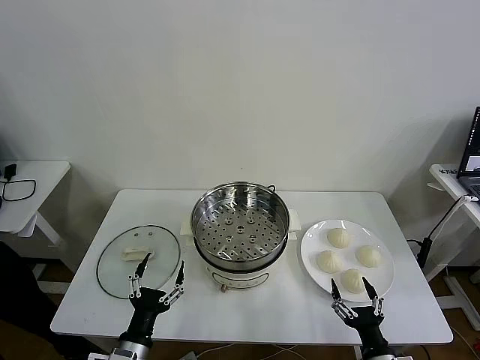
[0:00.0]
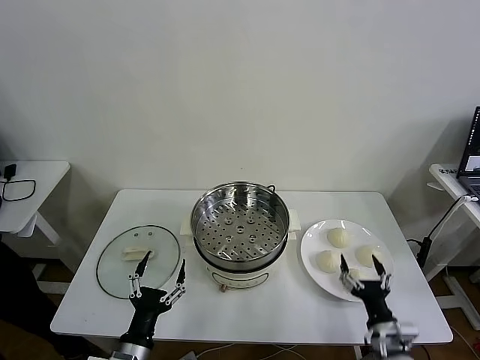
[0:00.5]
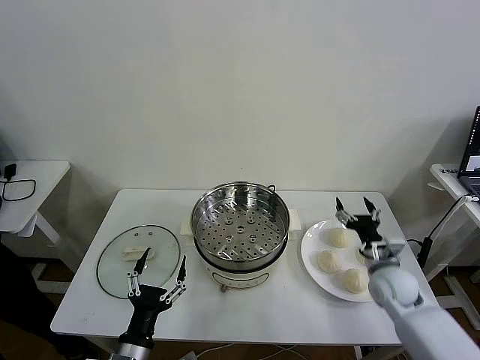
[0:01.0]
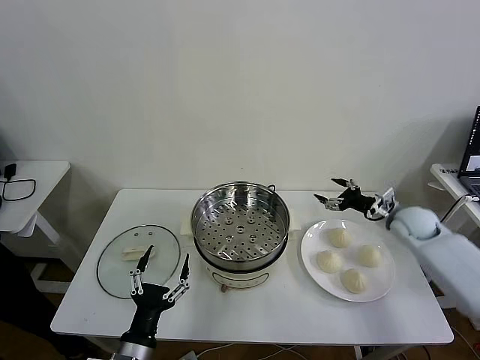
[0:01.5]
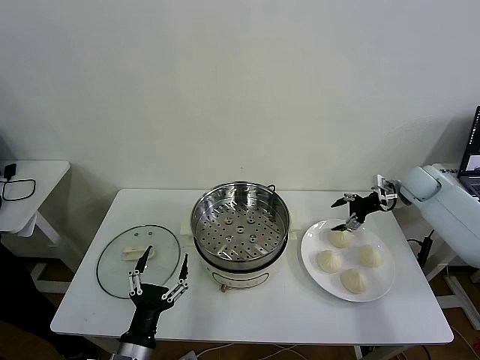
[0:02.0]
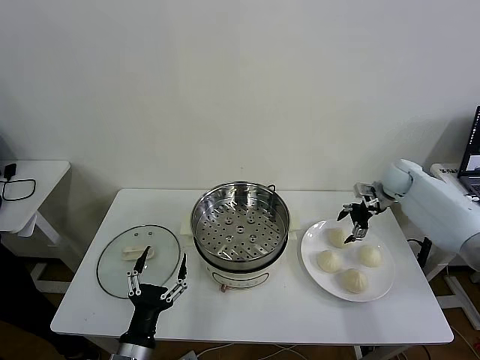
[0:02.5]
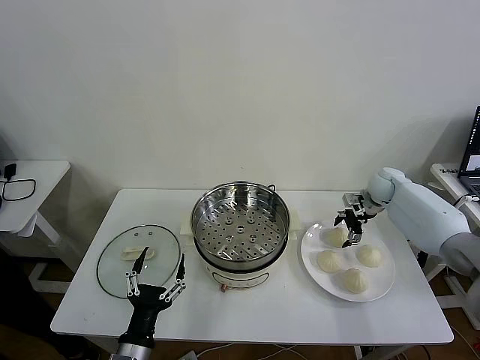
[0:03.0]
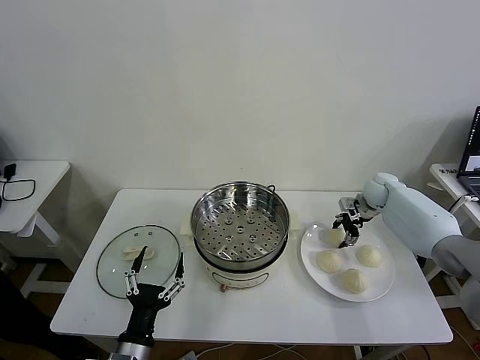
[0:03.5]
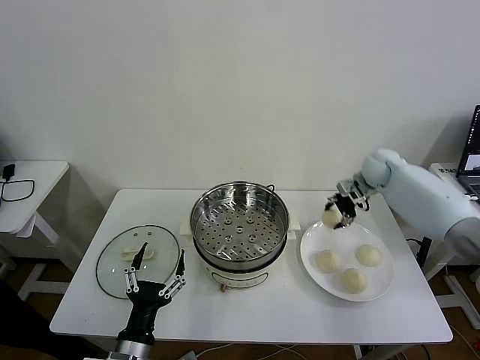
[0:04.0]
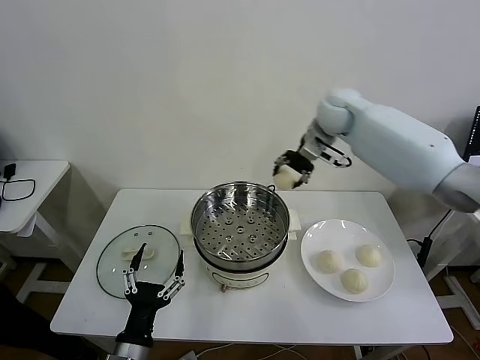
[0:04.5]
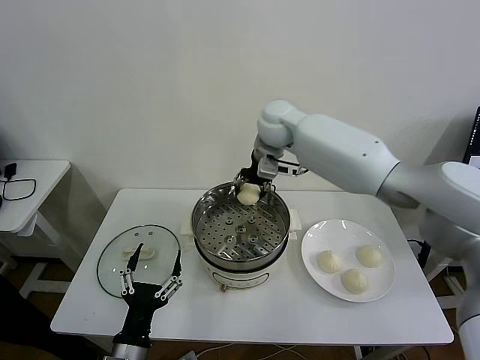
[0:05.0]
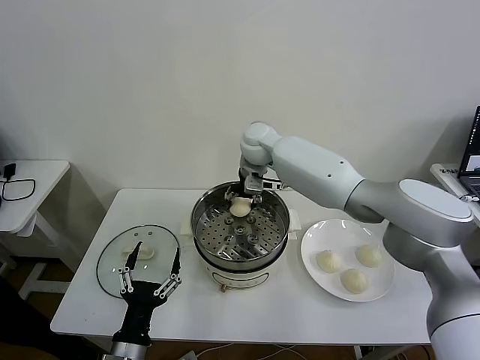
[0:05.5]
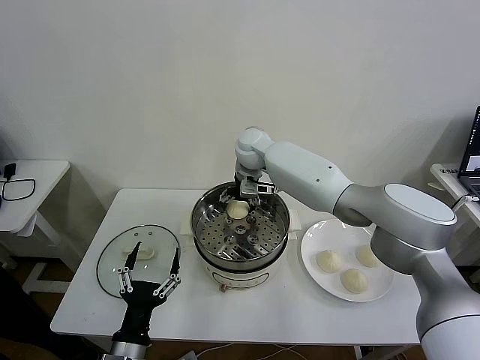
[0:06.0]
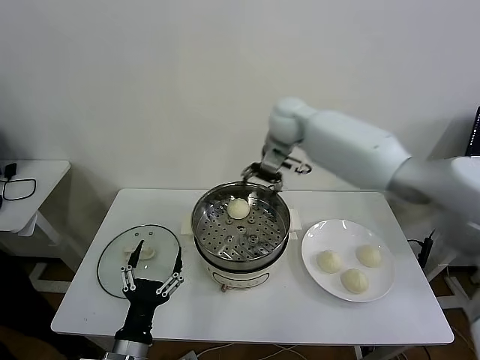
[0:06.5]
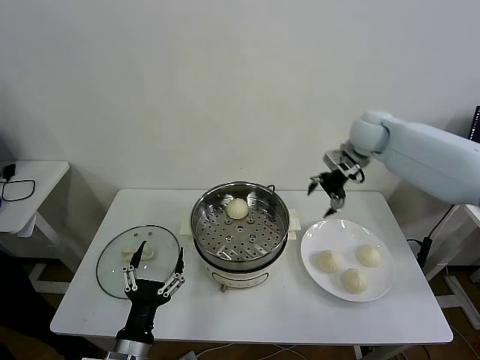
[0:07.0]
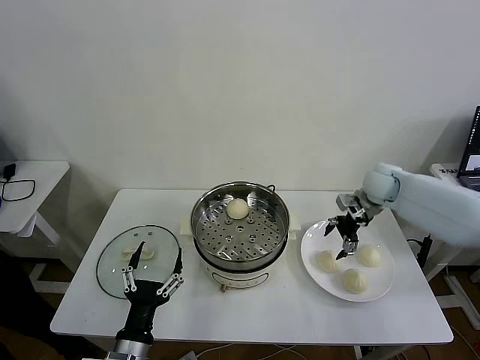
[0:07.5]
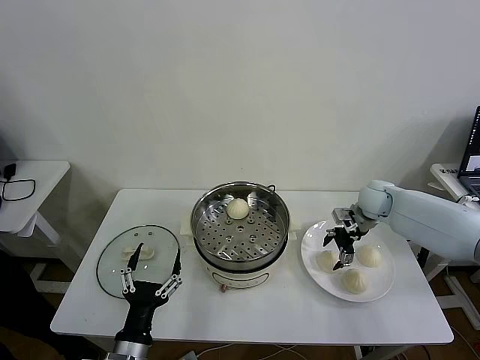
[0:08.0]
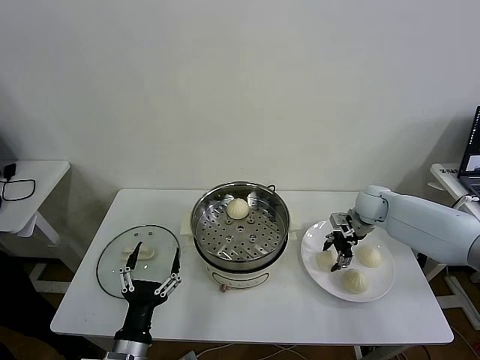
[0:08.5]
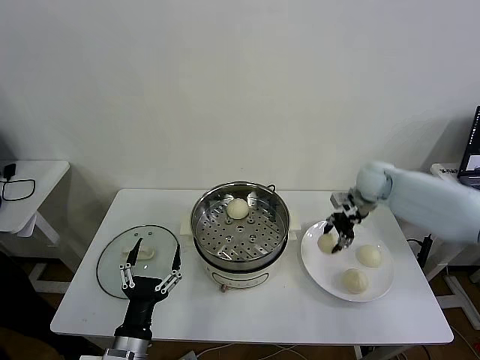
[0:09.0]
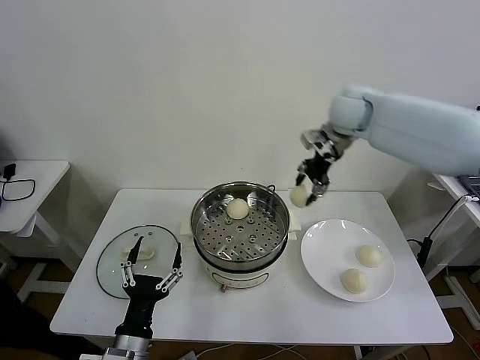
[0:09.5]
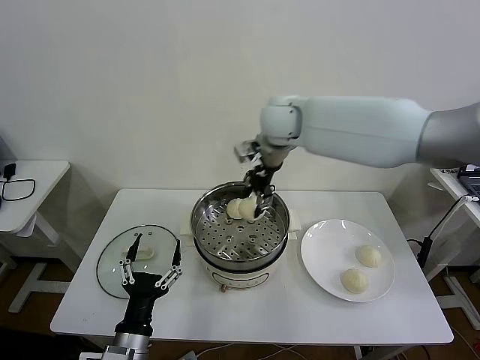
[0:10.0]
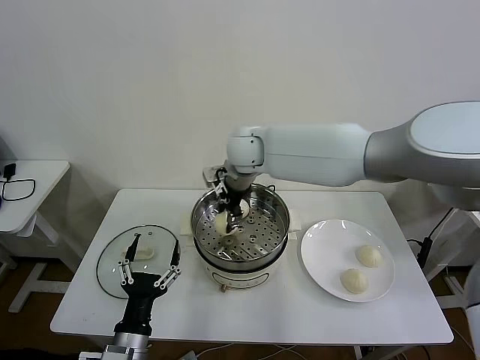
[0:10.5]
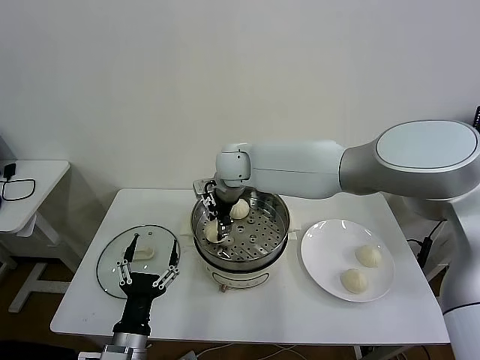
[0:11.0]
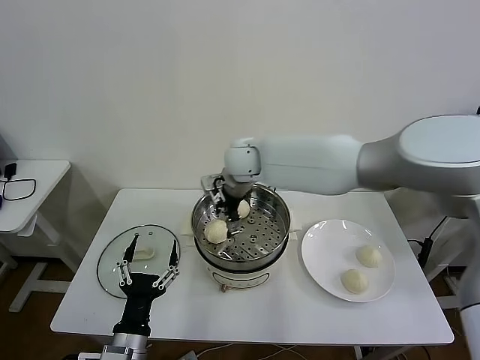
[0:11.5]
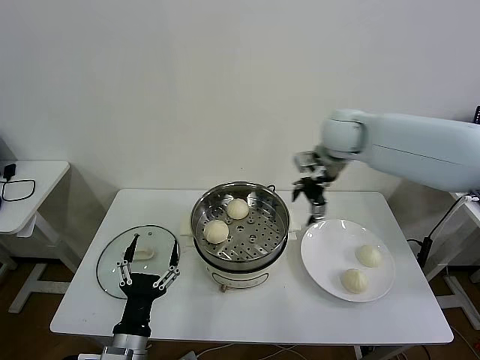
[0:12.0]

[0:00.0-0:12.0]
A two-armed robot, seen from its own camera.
Task of the whole recording: take steamed baozi put them in steamer then cover it.
Step, 0:00.0 to 0:03.5: Grasp the baozi in the plate with right gripper.
Step, 0:04.0 to 0:06.0: Place the baozi on the steamer with right gripper.
Step, 0:06.5 to 0:08.5: Grasp the baozi in the plate with right gripper.
Step, 0:09.0 to 0:11.5: Place the baozi on the steamer with right gripper.
0:02.0 to 0:04.0: The right gripper shifts roughly 10 cm to the left, and closes.
0:04.0 to 0:06.0: The right gripper is displaced to the left by about 30 cm, and opens its fingers.
0:06.0 to 0:08.0: The right gripper moves to the right, roughly 30 cm.
0:08.0 to 0:10.0: The right gripper goes approximately 35 cm to the left and upward, and closes up.
0:10.0 to 0:12.0: The right gripper travels to the right by about 15 cm, and opens its fingers.

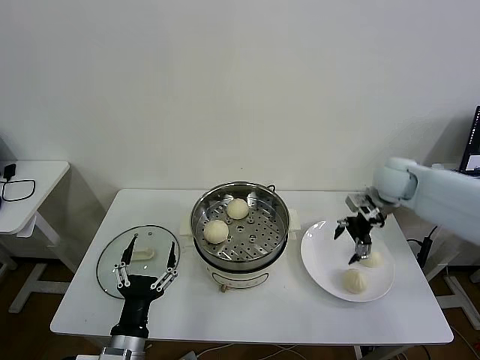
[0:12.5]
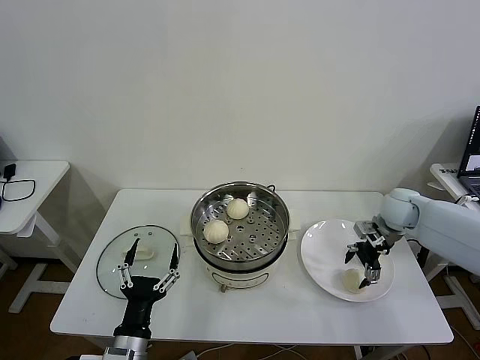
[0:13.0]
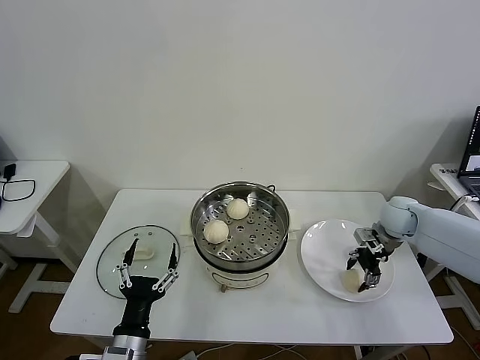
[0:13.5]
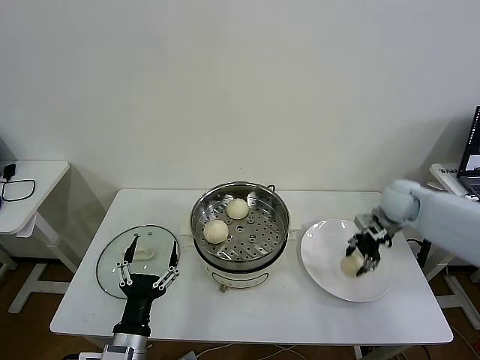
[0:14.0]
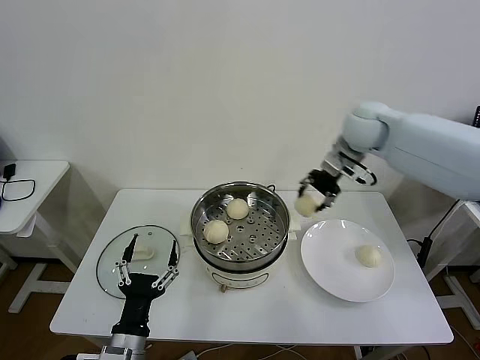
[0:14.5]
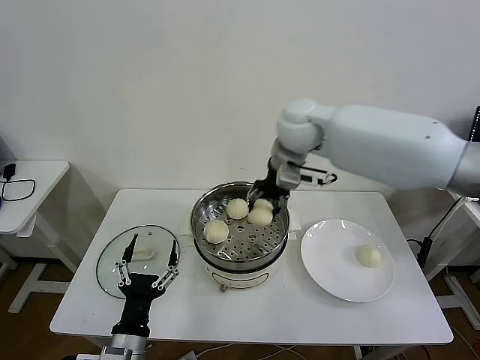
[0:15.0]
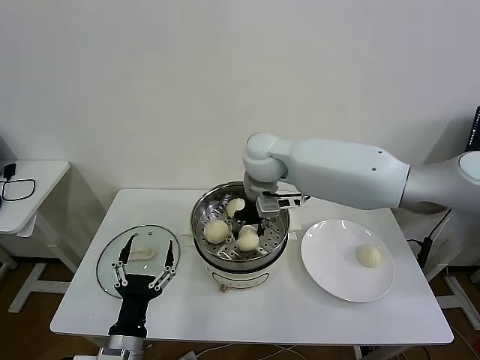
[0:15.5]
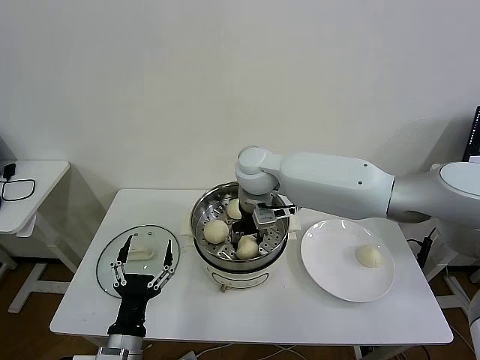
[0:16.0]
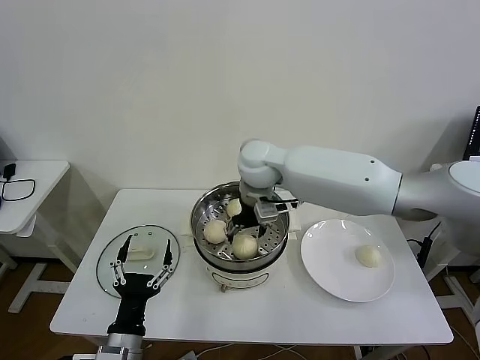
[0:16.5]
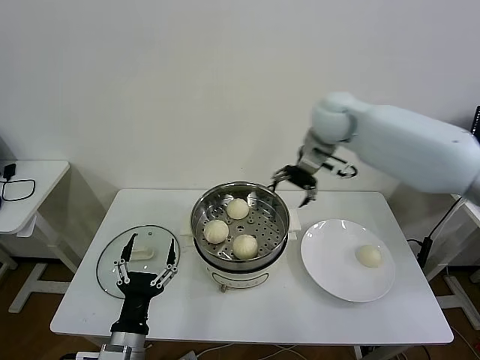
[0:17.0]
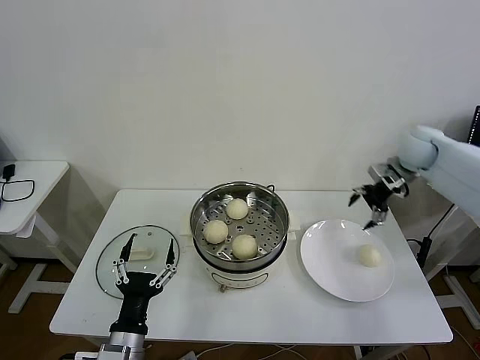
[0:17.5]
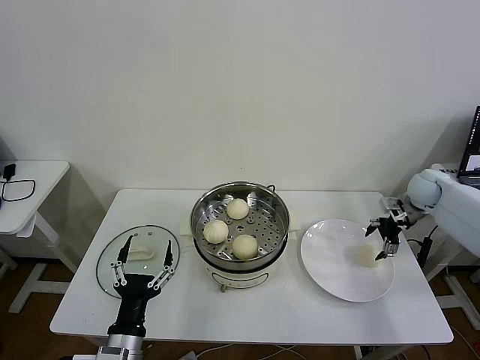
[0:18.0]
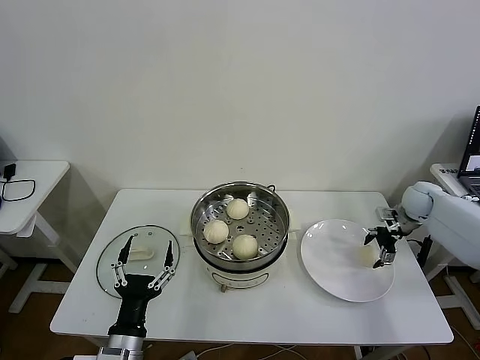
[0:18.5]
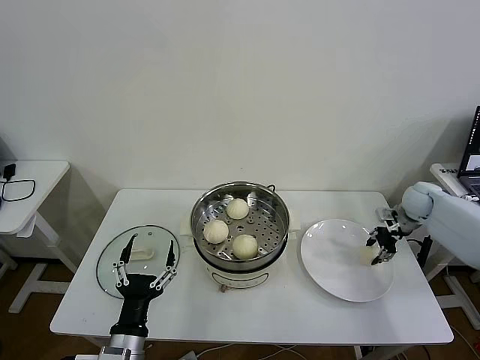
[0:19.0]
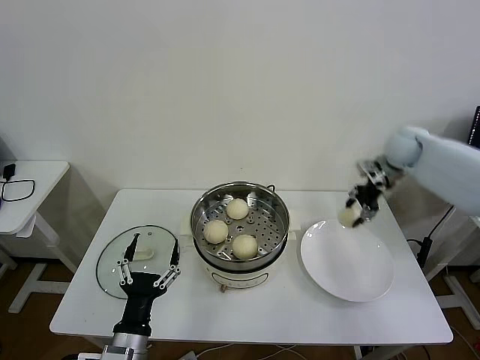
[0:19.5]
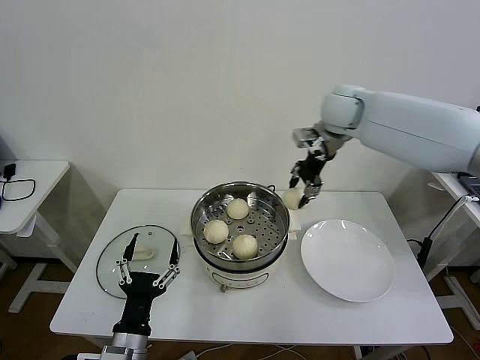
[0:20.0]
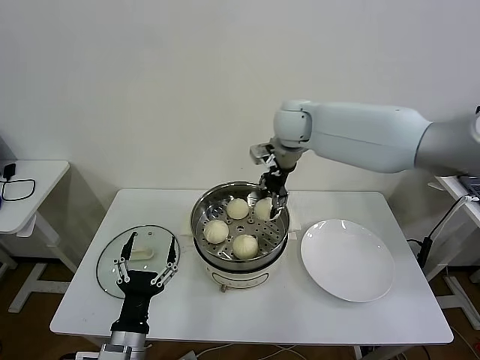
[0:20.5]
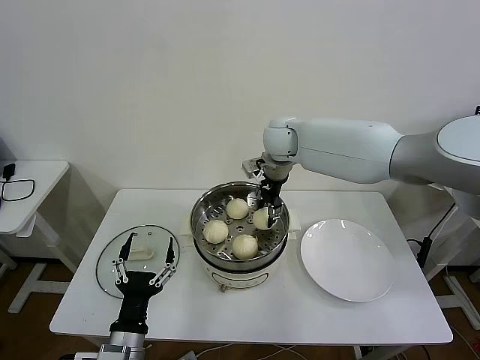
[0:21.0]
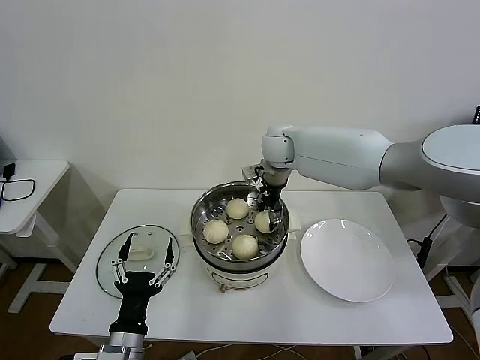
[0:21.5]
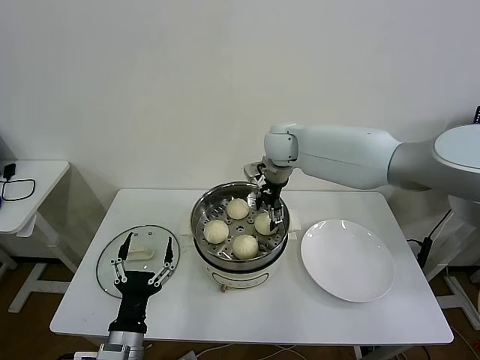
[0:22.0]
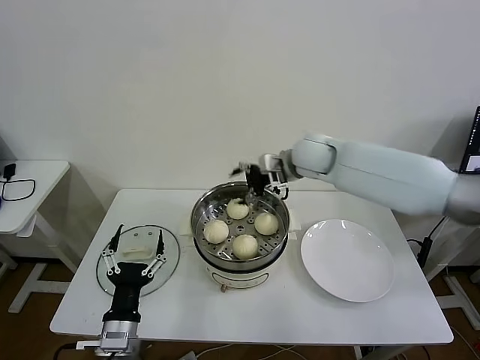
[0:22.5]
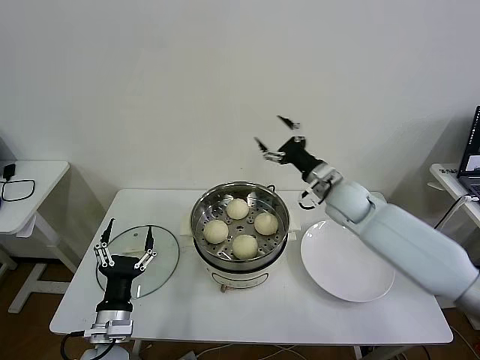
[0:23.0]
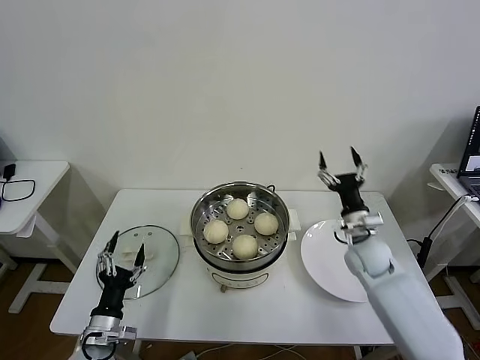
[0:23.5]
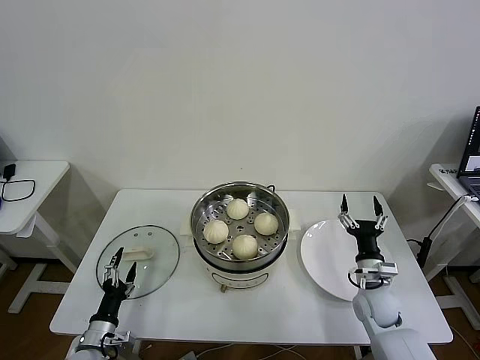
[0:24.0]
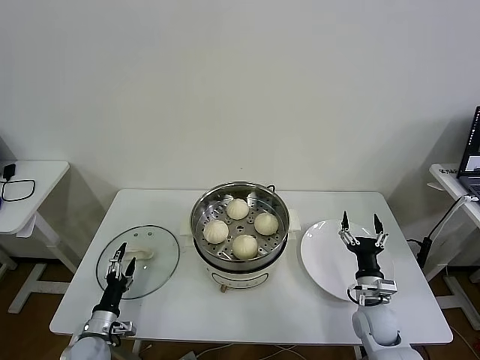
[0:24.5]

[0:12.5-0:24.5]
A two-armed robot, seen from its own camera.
Task of the whole recording: take steamed baozi put them in steamer then cover it.
Step, 0:12.5 to 0:13.5: Grasp the baozi in the plate with right gripper.
Step, 0:14.0 to 0:16.5: Place the baozi on the steamer with right gripper.
Step, 0:17.0 to 0:19.0: Grasp the baozi in the plate with right gripper.
Step, 0:19.5 to 0:22.0: Place the baozi on the steamer with right gripper.
0:12.5 to 0:14.5: The right gripper shifts about 15 cm upward and to the left, and closes up.
0:14.5 to 0:16.5: The right gripper is displaced to the left by some 20 cm, and opens up.
0:16.5 to 0:18.5: The right gripper travels to the right by some 40 cm.
0:18.5 to 0:20.5: The right gripper travels to the left and upward by approximately 40 cm, and closes its fingers.
0:20.5 to 0:22.5: The right gripper shifts some 5 cm downward, and opens its fingers.
0:22.5 to 0:24.5: The right gripper shifts about 40 cm downward, backward and to the right. Meanwhile the left gripper heads downward, to the left and forward, covering about 20 cm.

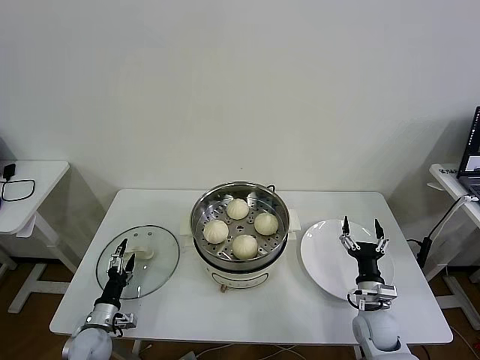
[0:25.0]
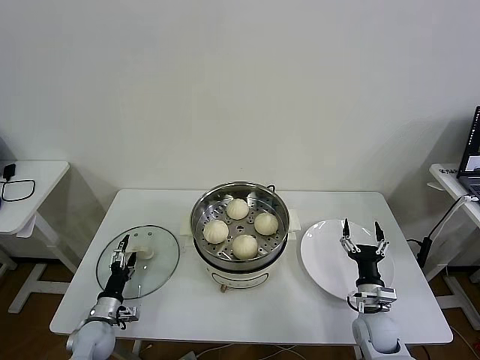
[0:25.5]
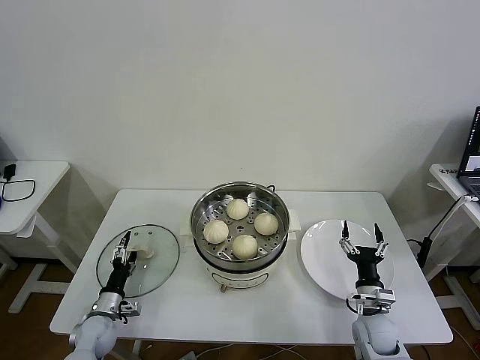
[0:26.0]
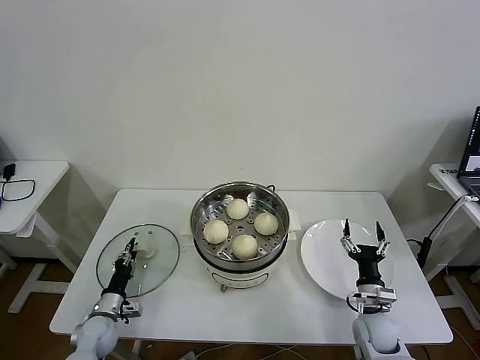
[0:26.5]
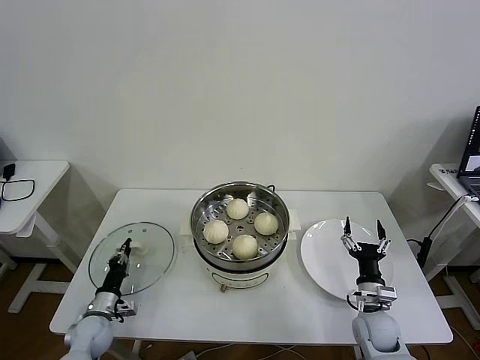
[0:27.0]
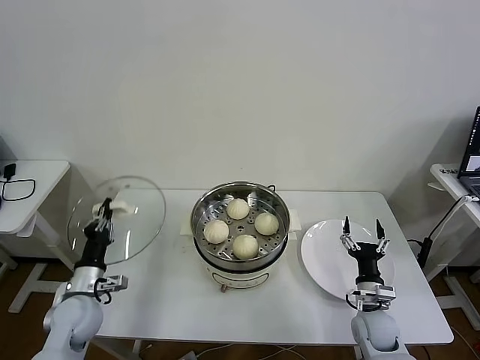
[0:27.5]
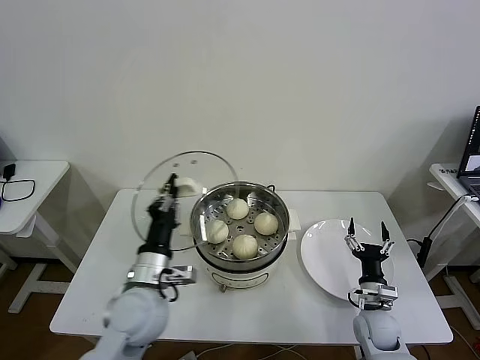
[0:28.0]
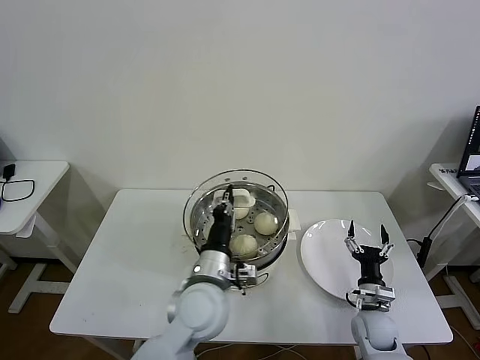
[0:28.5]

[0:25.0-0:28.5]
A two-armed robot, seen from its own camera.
Task of the whole recording: take steamed baozi put them in steamer then cover it.
Step, 0:25.0 to 0:27.0: Grasp the pot lid with left gripper.
0:25.0 to 0:27.0: The left gripper closes.
0:27.0 to 0:28.5: The left gripper travels to the right and upward by approximately 40 cm.
